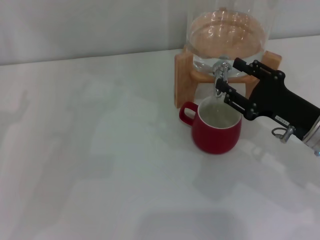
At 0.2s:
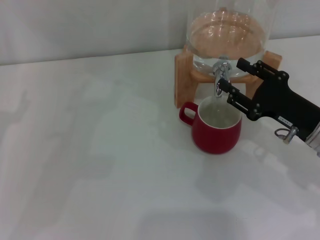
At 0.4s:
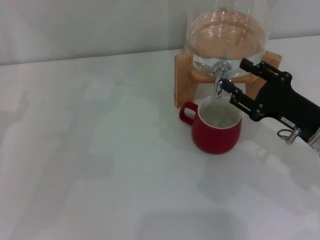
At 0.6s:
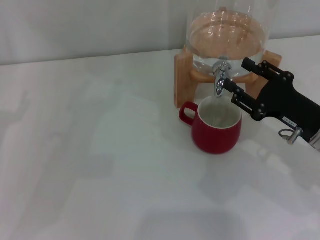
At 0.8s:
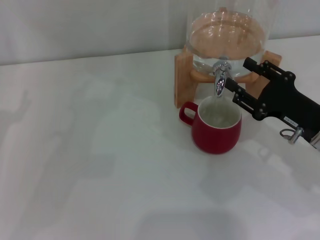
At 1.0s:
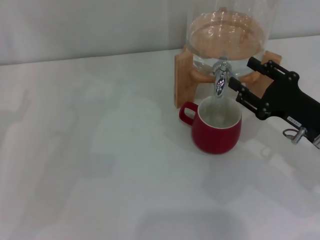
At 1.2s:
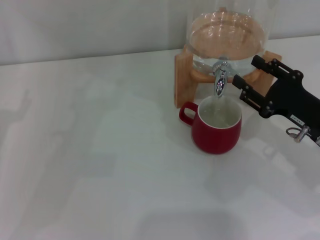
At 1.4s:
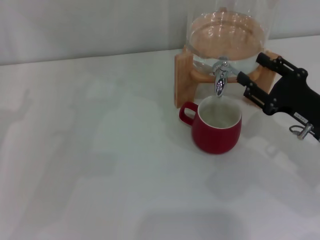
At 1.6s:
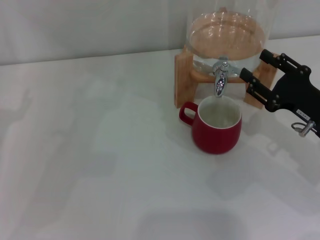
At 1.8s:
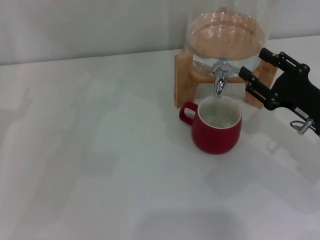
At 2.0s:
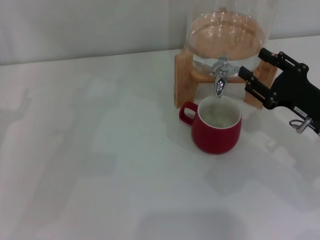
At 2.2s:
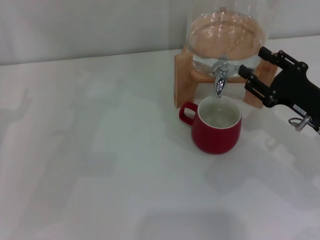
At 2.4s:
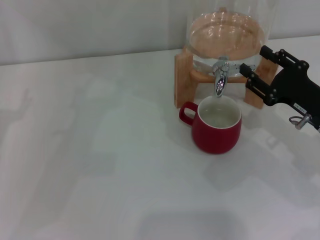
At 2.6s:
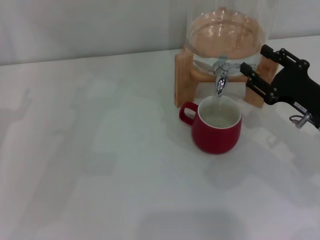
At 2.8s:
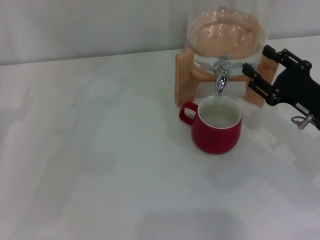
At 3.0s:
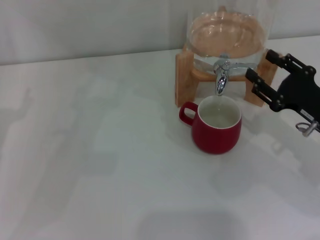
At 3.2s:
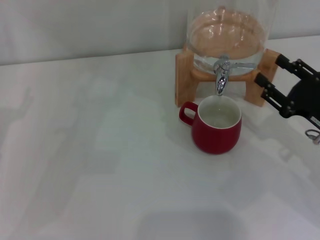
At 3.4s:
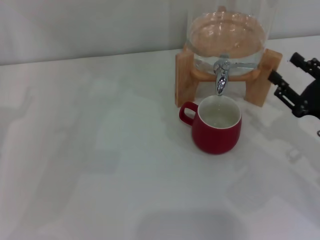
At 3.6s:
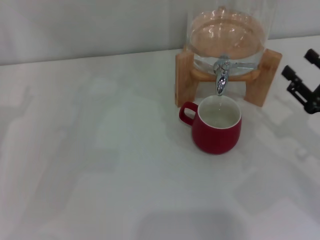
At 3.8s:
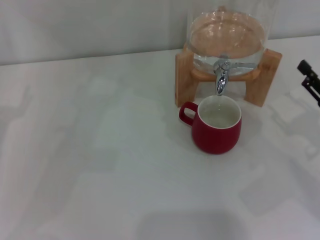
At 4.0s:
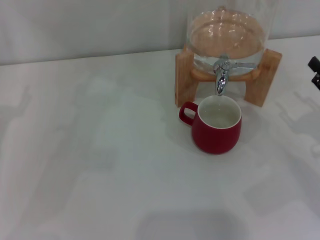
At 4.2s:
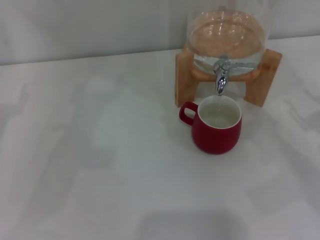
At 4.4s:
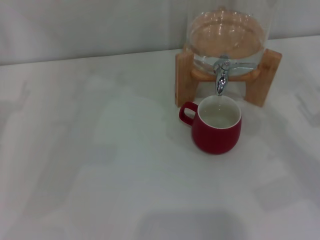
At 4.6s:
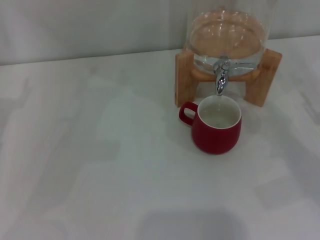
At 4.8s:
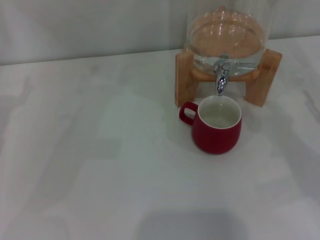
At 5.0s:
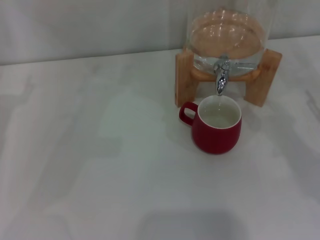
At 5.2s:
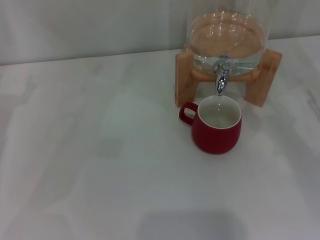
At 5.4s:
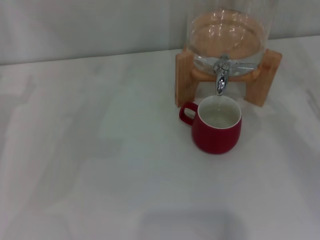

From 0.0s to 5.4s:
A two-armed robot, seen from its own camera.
Task of the whole recording: the left gripper pick up the red cup and place it horizontally under the faucet, the right gripper turn on the faucet to fill the cup, and then turn off the faucet.
Step, from 0.0s to 2.8s: Close the dispenser valve with the right gripper.
From 0.0s to 2.8s: There are only small adjustments of the grippers.
From 2.8s to 4.0s: The right gripper is displaced to the right and backward by about 10 cm.
From 4.0s to 5.4s: The grippers move only a little.

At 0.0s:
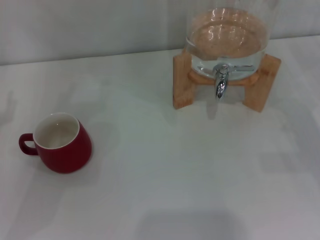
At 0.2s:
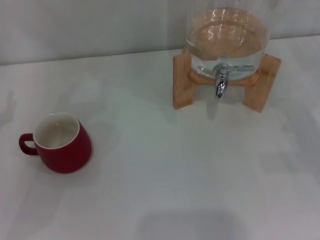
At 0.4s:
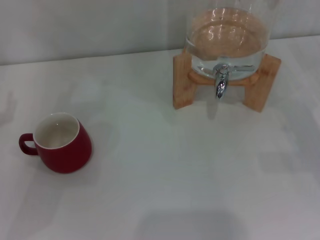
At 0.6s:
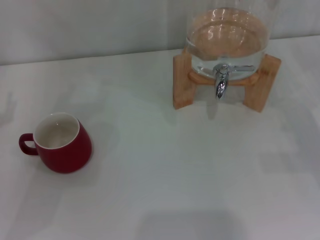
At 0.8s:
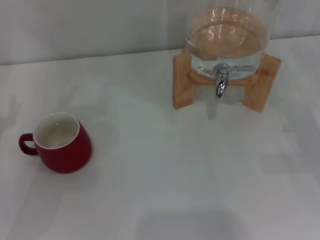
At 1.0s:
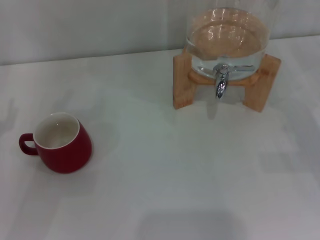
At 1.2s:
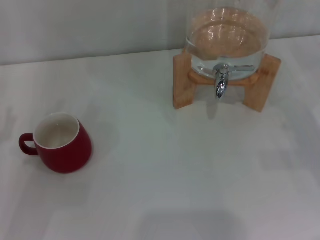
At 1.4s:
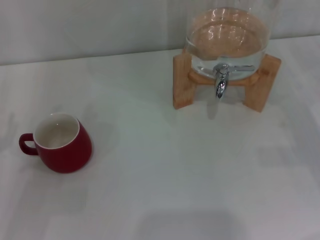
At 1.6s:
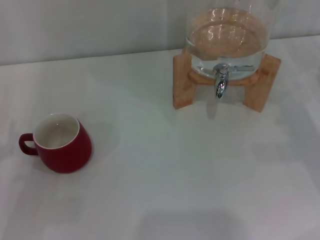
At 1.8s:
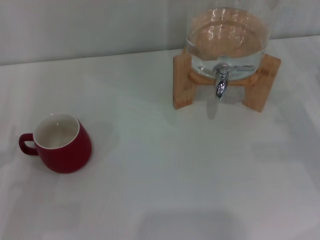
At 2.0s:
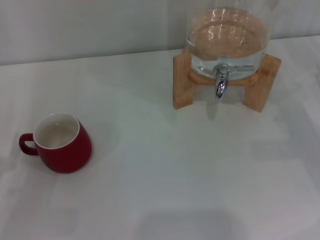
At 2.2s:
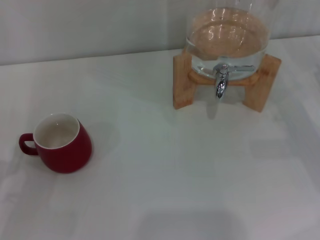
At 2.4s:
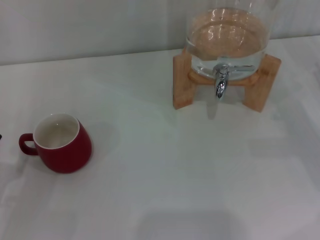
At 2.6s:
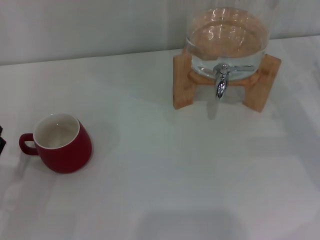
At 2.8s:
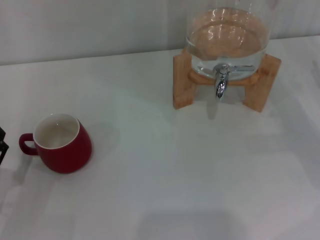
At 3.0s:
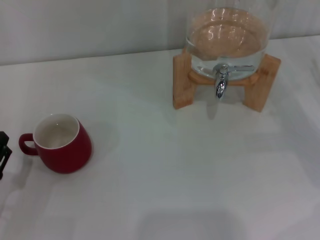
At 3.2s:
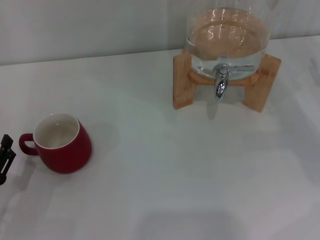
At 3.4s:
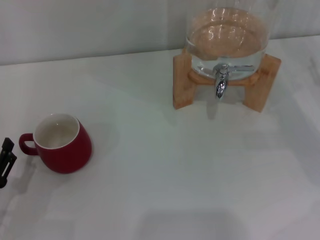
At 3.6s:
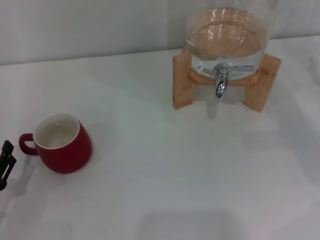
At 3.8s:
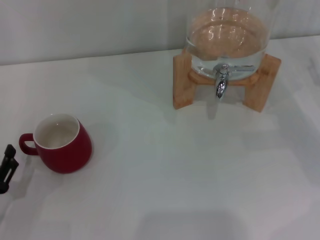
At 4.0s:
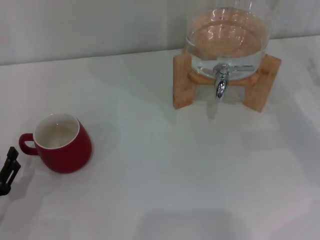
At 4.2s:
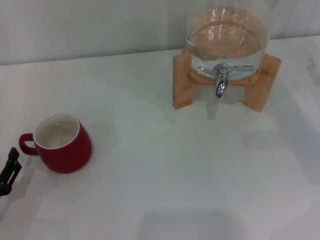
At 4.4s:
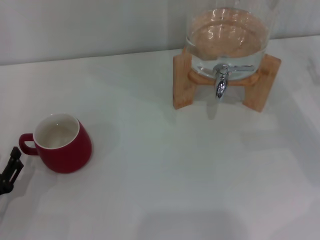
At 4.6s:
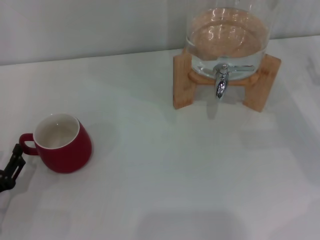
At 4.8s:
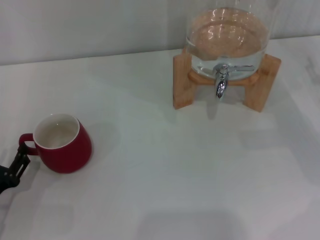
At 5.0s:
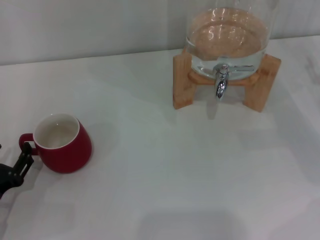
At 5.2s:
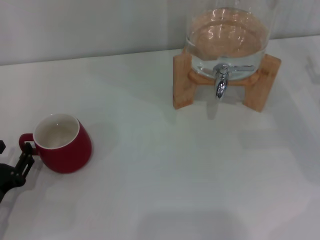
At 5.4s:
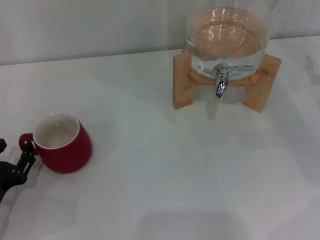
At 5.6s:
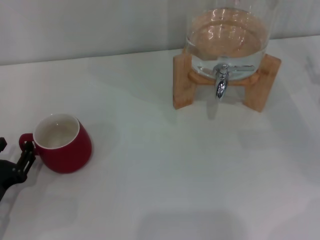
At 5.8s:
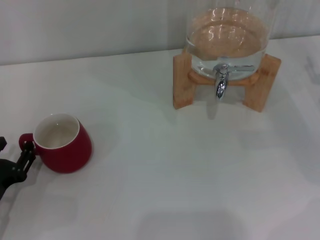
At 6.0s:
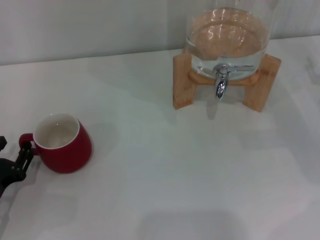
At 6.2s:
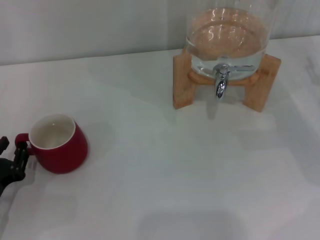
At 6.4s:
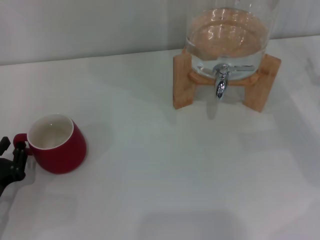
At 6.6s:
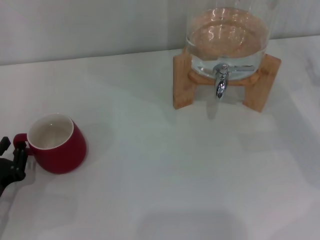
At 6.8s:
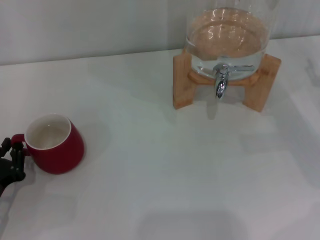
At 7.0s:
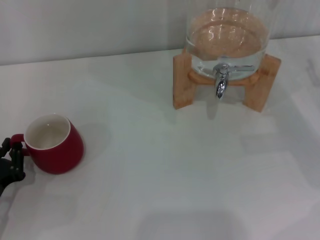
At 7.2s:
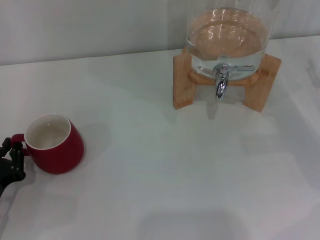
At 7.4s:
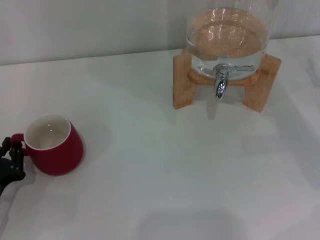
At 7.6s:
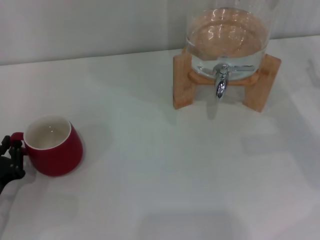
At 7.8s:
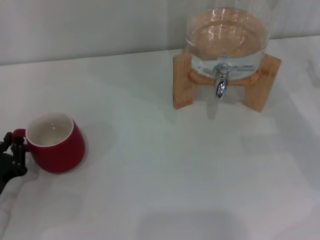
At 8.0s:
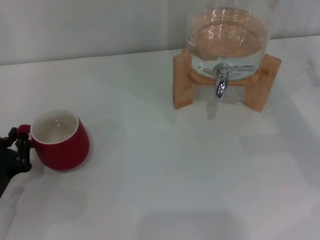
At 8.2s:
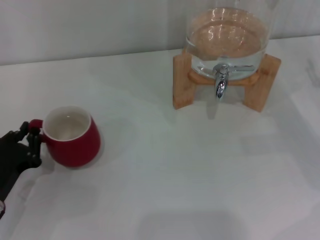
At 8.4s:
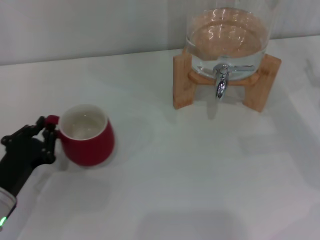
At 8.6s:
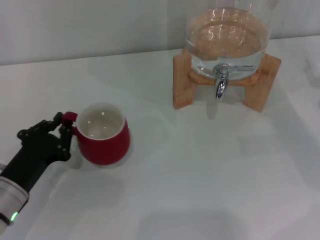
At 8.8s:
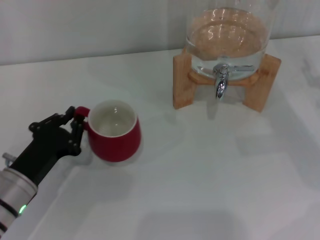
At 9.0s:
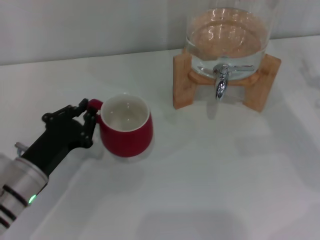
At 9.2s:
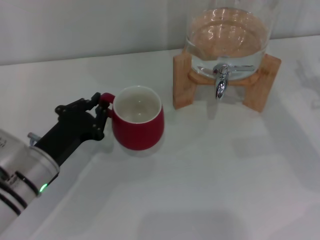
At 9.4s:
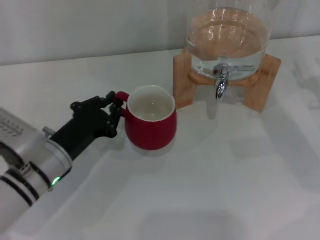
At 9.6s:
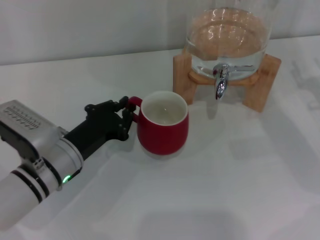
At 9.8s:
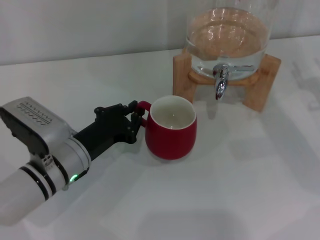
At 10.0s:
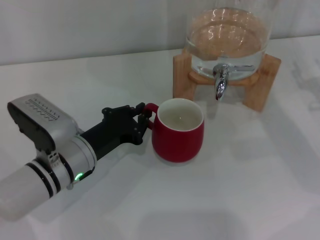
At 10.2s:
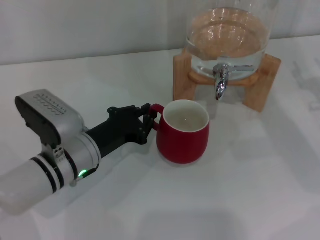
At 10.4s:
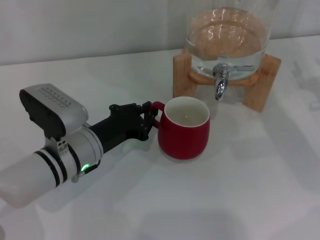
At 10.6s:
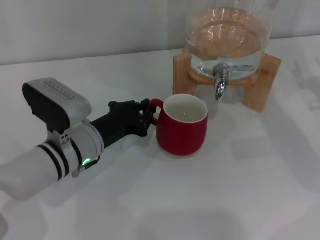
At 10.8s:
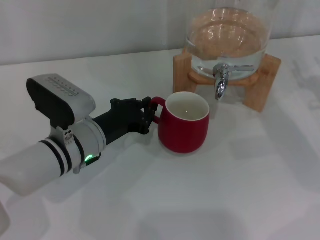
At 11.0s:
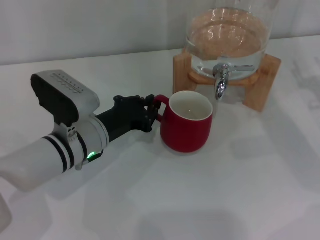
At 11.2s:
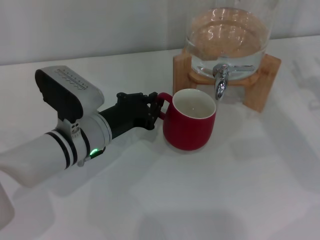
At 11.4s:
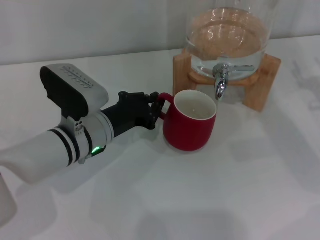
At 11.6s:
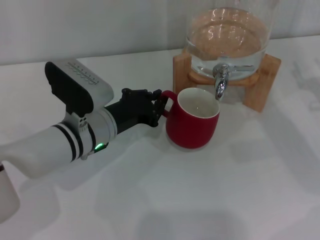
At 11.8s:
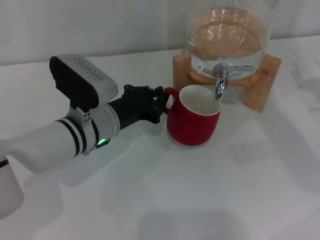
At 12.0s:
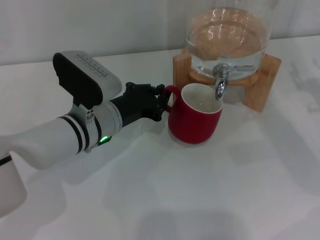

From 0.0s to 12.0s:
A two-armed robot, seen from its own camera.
Task of the whole recording: the left gripper pick up the red cup and place it horizontally under the faucet, the right gripper turn on the faucet to fill the cup, and then turn off the faucet.
From 1.6s to 3.0s: The left gripper moves about 5 cm.
From 3.0s to 6.0s: There are only small adjustments of the grippers.
From 6.0s to 7.6s: The left gripper closes its fingers.
From 7.6s to 9.0s: The left gripper moves to the right, some 10 cm.
From 9.0s to 10.4s: The left gripper heads to the right, covering approximately 10 cm.
From 10.4s to 12.0s: The left gripper moves about 5 cm.

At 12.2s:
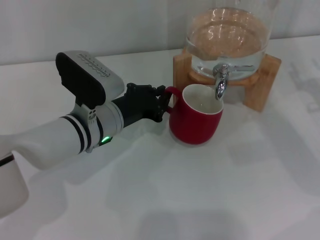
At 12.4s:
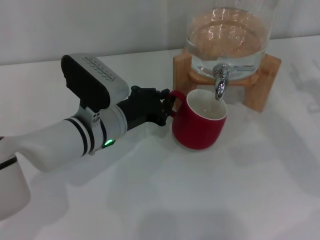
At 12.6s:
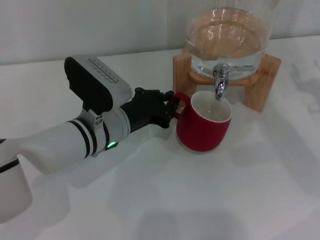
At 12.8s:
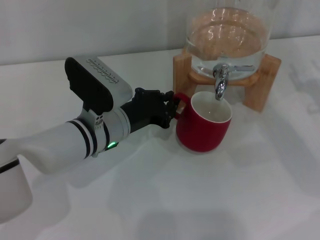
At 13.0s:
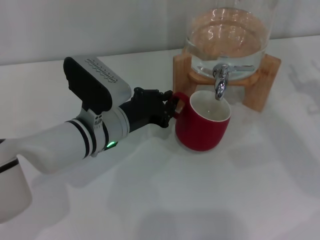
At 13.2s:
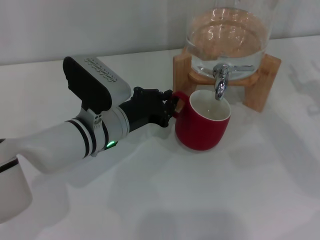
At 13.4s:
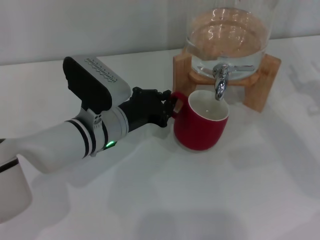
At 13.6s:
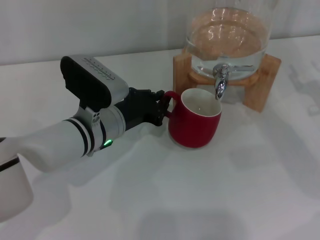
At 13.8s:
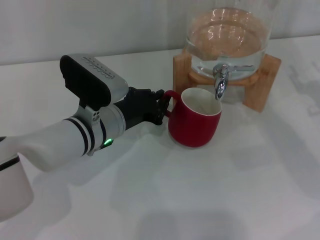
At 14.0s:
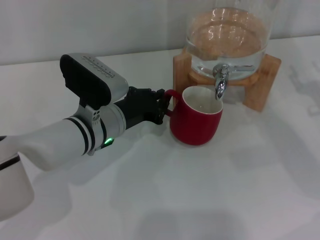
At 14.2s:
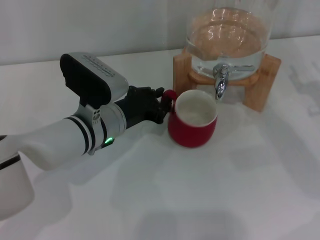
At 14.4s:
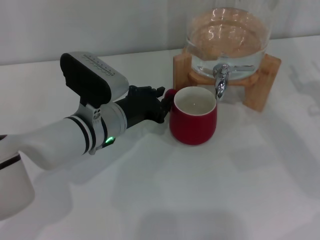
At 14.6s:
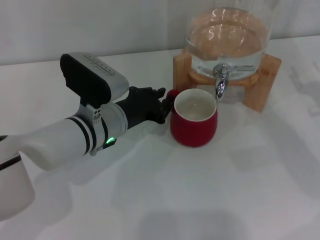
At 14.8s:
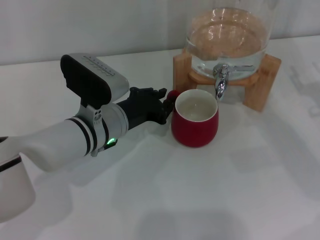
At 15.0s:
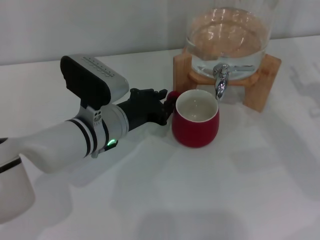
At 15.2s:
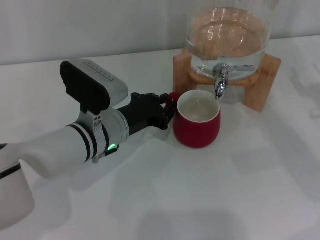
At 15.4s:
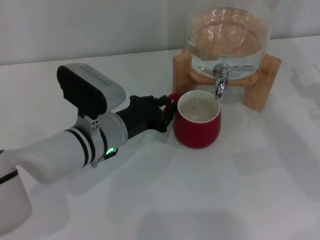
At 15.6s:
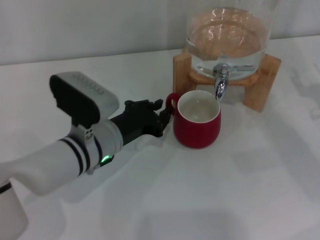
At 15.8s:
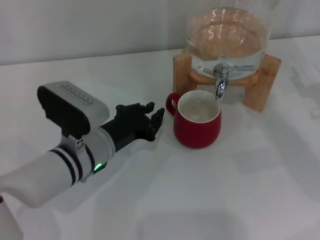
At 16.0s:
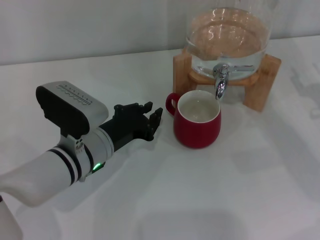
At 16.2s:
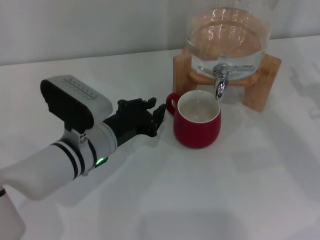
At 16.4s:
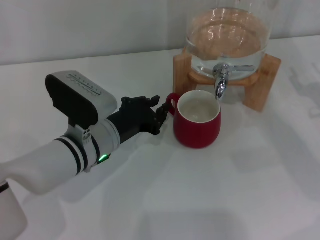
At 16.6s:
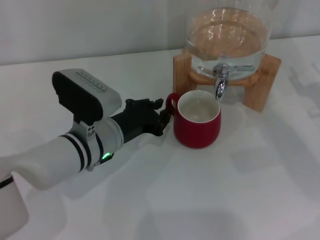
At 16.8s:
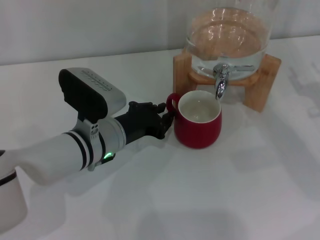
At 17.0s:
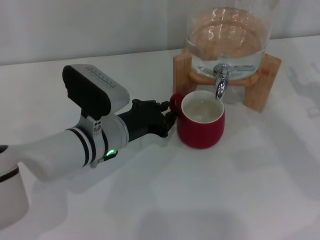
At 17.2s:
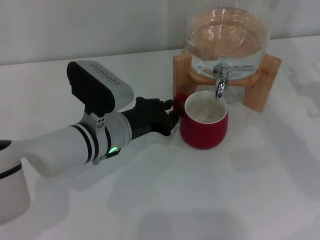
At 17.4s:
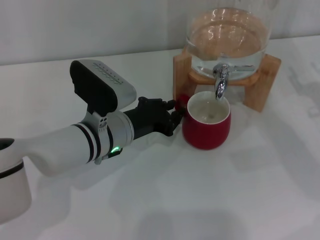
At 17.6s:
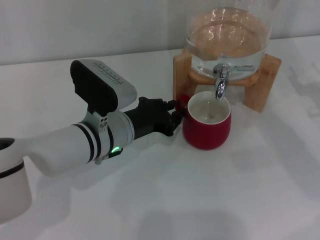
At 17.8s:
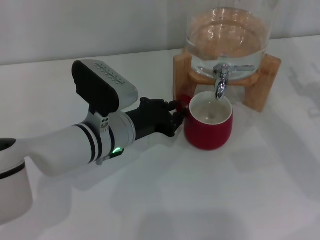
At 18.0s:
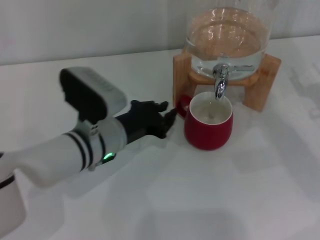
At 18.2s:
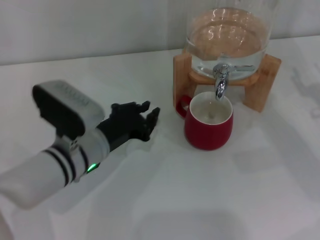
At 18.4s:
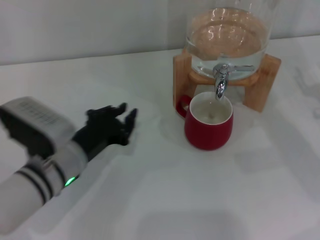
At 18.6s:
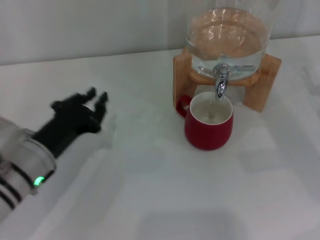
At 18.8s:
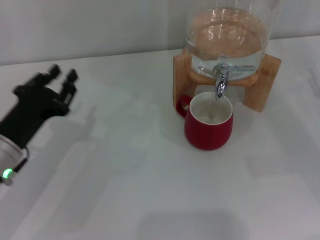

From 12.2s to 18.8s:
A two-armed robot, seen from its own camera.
Task of the whole recording: the left gripper pick up the red cup and place it horizontally under the faucet, the right gripper turn on the faucet to fill the cup, and then turn off the faucet.
Step, from 12.2s to 18.2s: Move the cup beneath the water dispenser nozzle with the left gripper.
From 12.2s to 13.8s: Neither gripper changes place.
From 13.8s to 17.2s: The grippers move only a little.
From 17.2s to 18.8s: The left gripper heads to the left, covering some 15 cm.
